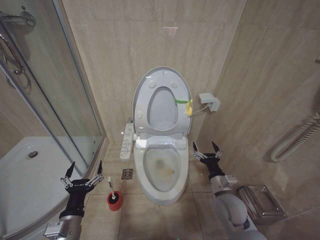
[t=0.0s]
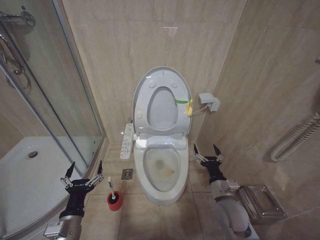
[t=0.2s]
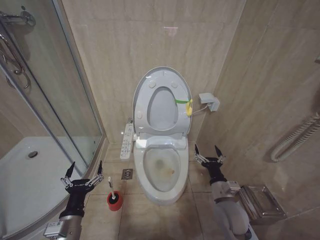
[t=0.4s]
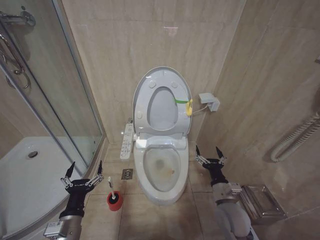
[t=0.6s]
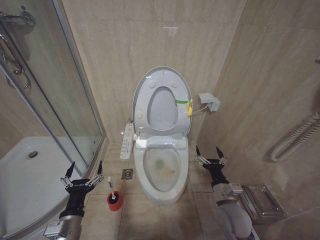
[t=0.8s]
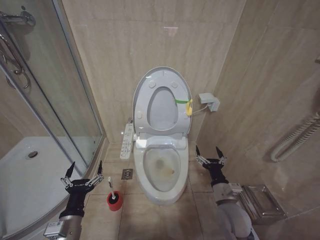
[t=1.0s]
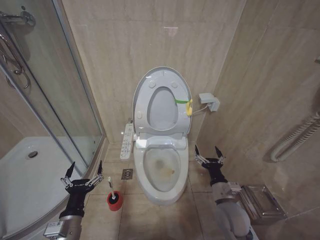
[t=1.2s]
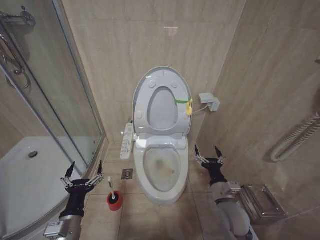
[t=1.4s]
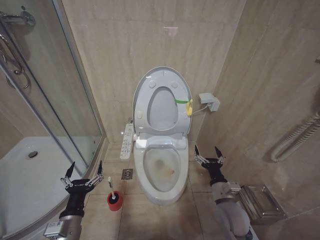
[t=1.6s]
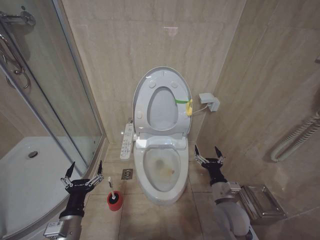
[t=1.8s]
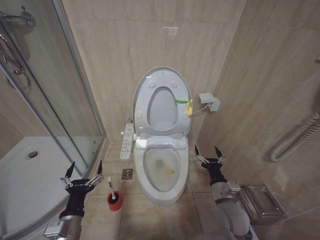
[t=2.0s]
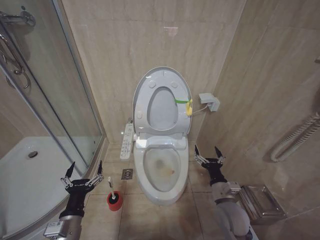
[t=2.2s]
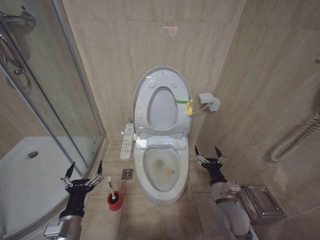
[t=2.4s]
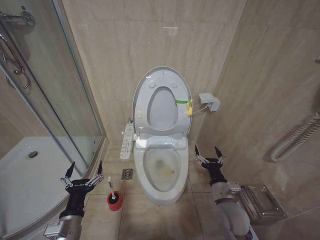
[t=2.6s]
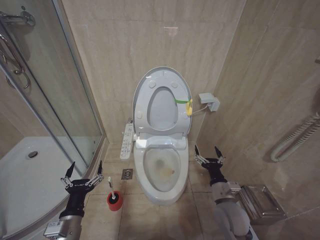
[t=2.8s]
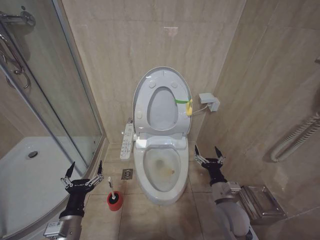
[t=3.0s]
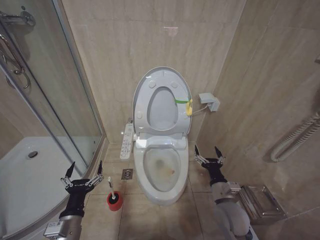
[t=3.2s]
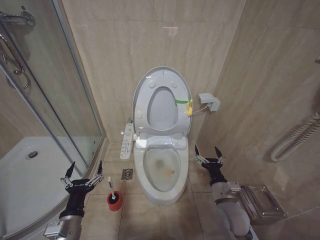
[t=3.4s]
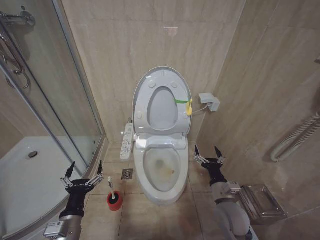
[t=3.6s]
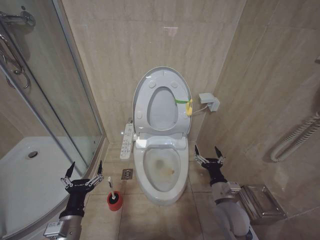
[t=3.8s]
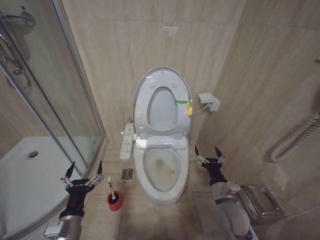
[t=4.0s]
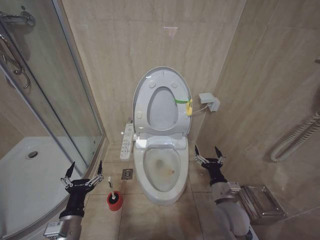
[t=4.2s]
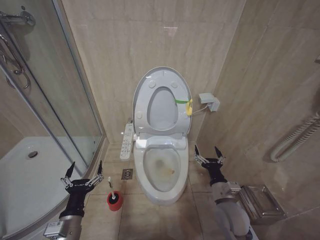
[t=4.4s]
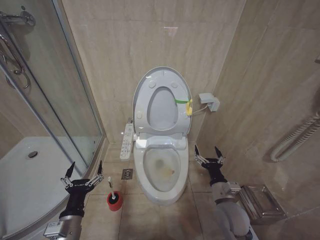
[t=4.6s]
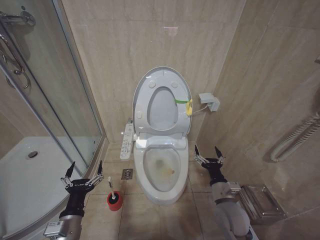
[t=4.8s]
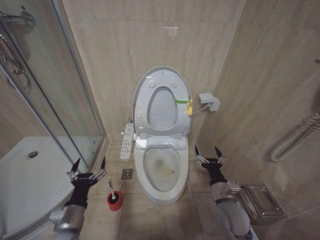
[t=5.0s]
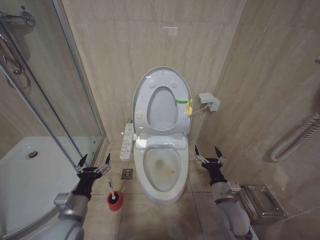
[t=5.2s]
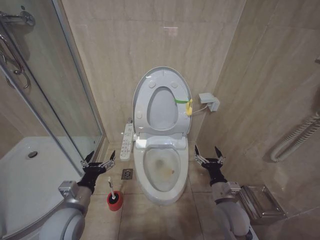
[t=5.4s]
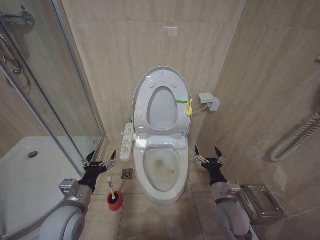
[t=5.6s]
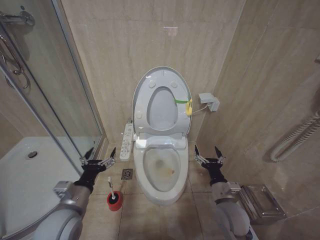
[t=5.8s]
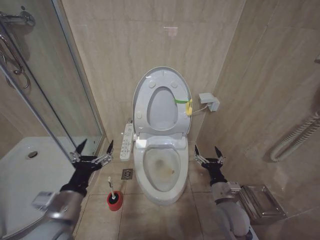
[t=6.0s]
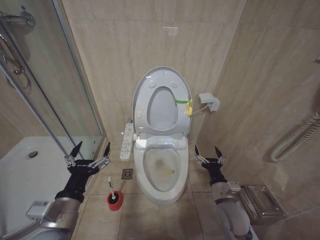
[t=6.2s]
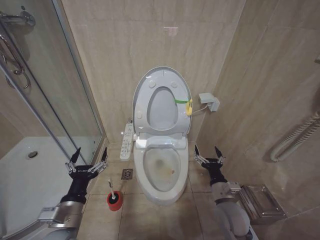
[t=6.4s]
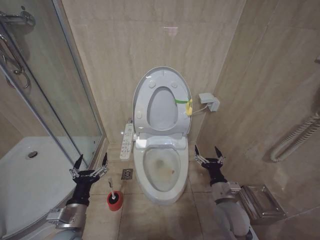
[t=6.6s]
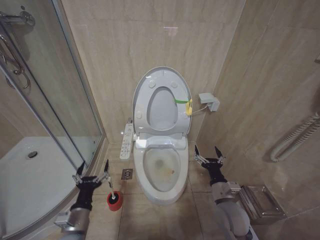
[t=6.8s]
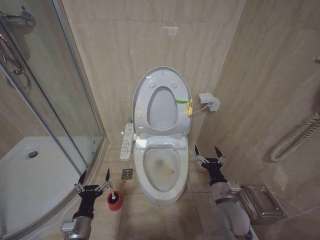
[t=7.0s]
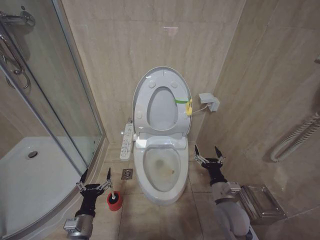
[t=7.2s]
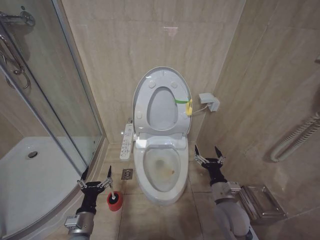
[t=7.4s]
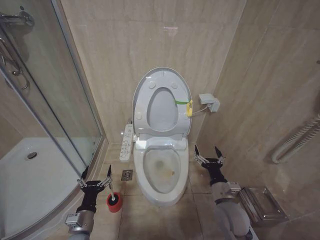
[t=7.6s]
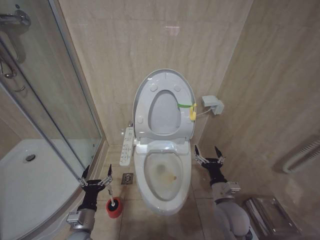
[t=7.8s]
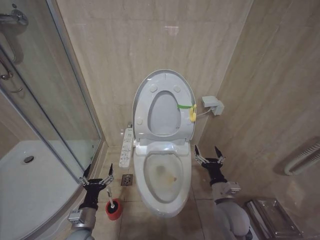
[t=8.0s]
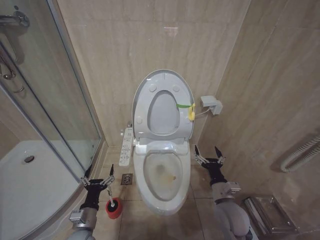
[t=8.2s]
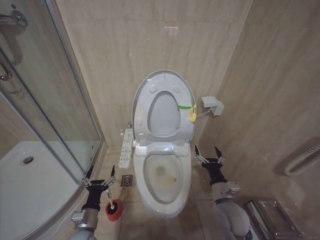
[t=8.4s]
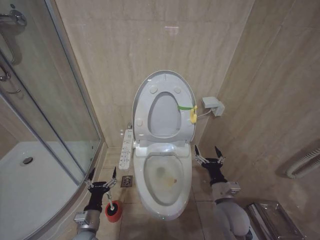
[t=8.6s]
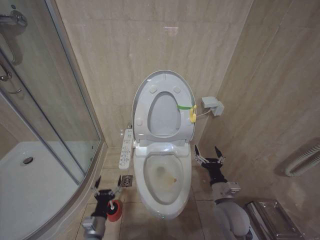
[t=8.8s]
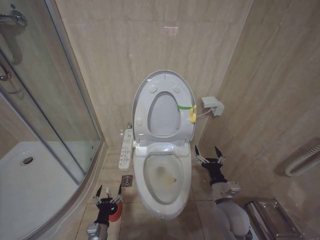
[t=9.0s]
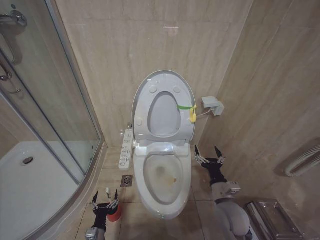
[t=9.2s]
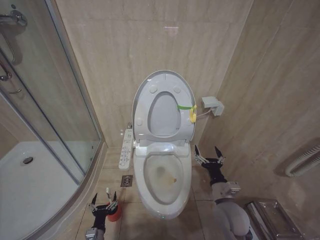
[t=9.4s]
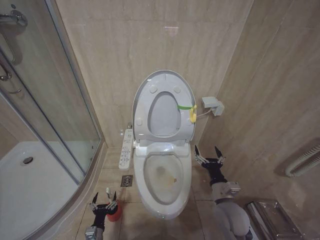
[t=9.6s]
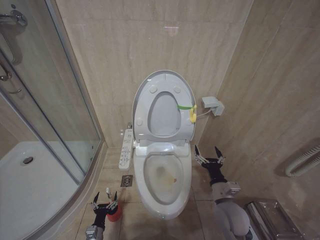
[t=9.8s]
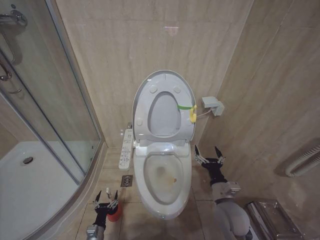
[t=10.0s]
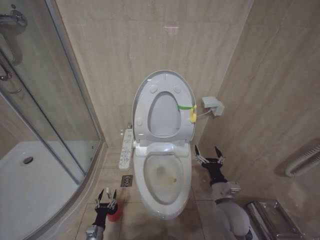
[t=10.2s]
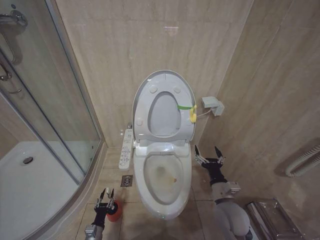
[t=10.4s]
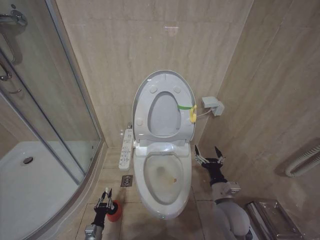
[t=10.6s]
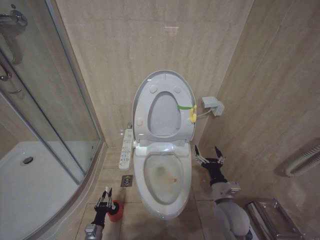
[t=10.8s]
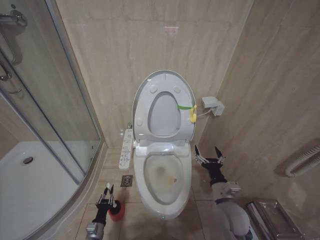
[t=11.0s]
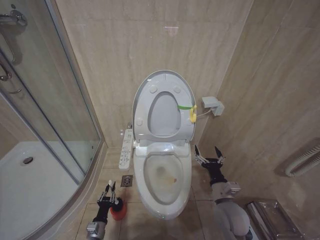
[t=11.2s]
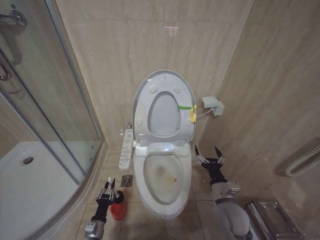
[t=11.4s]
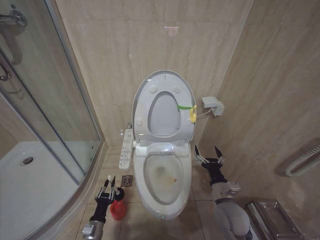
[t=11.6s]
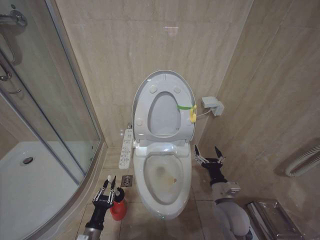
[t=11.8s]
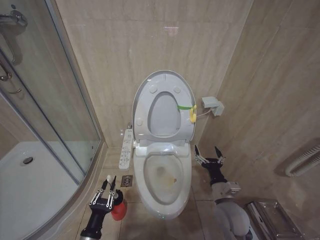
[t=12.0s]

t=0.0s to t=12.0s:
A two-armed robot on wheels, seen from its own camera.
Task of the whole recording: Open the toilet lid, clean the toilet bowl with a toilet brush, close the toilet lid, and flush.
t=0.0s to t=1.6s: The grippers move only a little.
t=1.6s to t=4.4s: Neither gripper changes place.
t=4.4s to t=6.0s: The left gripper shifts roughly 10 cm upward.
t=6.0s to t=7.6s: The left gripper is displaced downward by roughly 20 cm.
t=7.6s to t=9.0s: The left gripper goes approximately 10 cm downward.
t=9.0s to t=10.4s: The left gripper goes about 10 cm downward and to the left.
t=10.4s to t=12.0s: The left gripper travels upward by some 20 cm, and closes up.

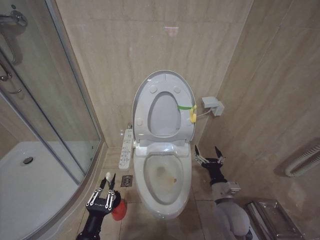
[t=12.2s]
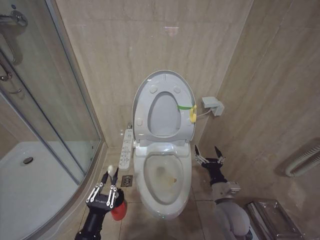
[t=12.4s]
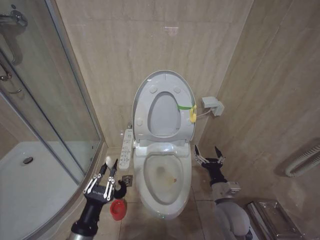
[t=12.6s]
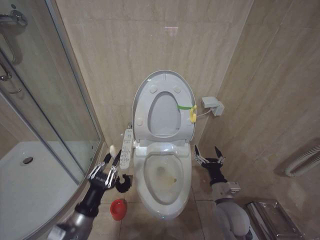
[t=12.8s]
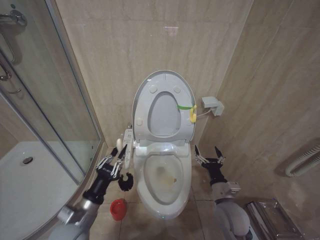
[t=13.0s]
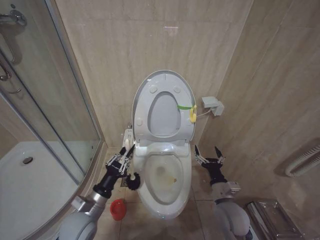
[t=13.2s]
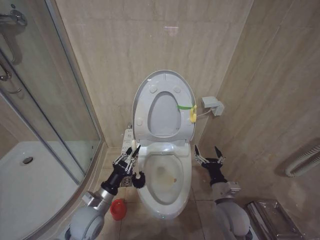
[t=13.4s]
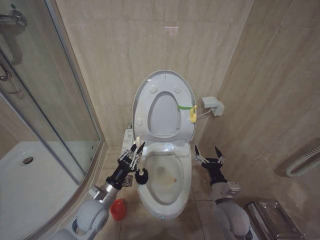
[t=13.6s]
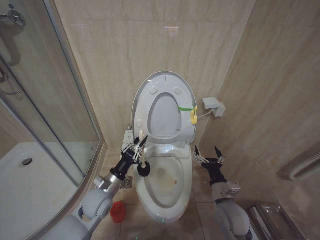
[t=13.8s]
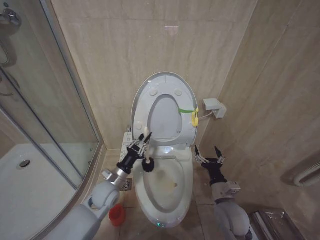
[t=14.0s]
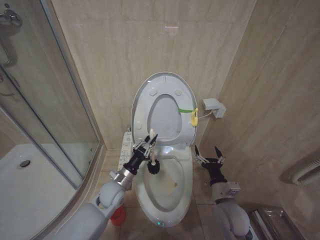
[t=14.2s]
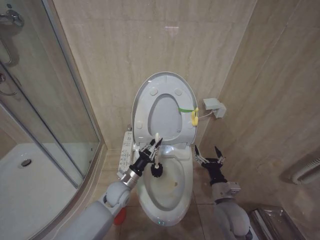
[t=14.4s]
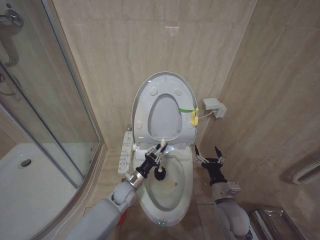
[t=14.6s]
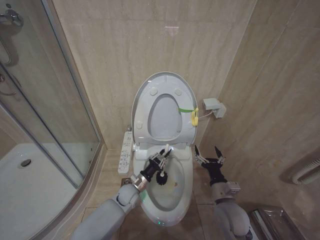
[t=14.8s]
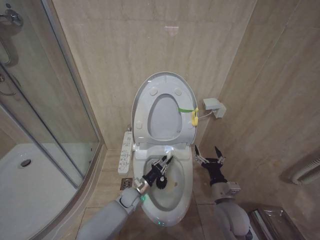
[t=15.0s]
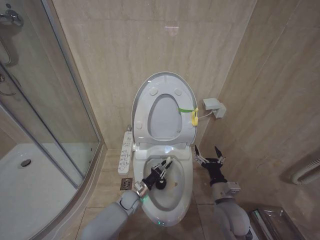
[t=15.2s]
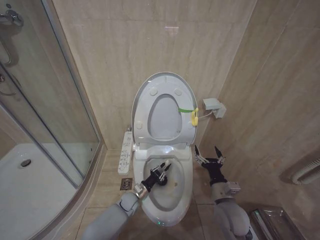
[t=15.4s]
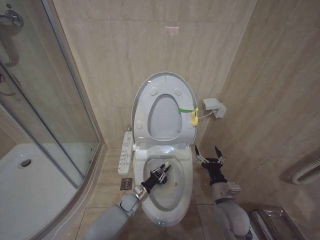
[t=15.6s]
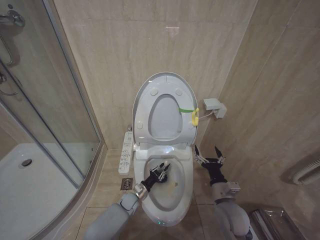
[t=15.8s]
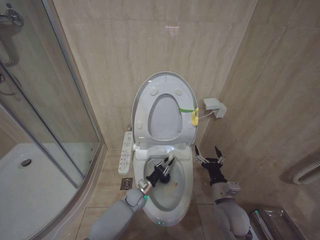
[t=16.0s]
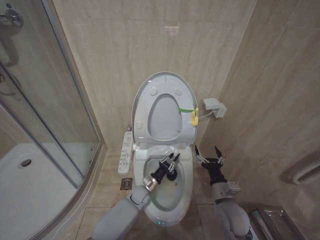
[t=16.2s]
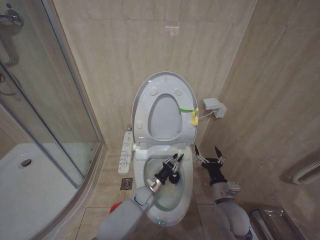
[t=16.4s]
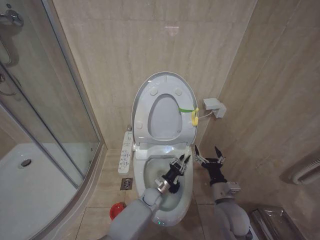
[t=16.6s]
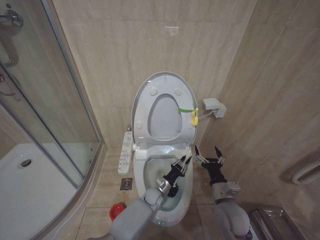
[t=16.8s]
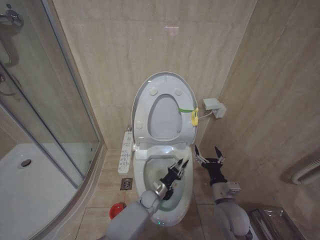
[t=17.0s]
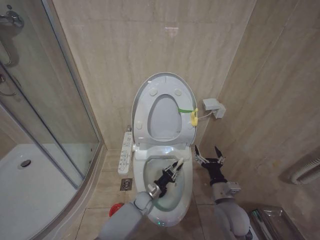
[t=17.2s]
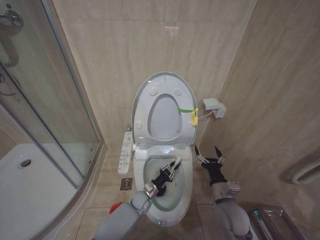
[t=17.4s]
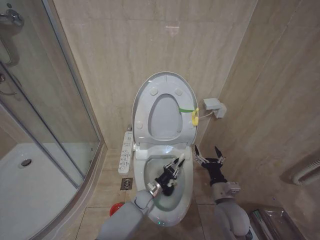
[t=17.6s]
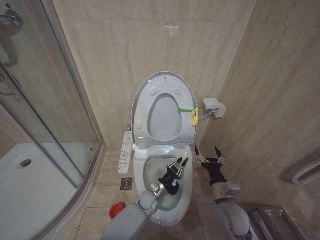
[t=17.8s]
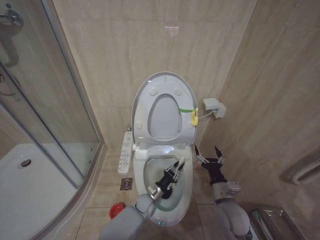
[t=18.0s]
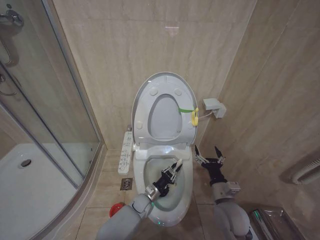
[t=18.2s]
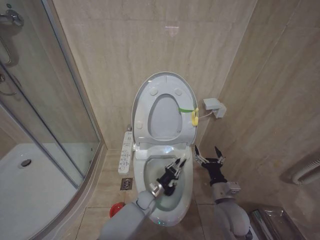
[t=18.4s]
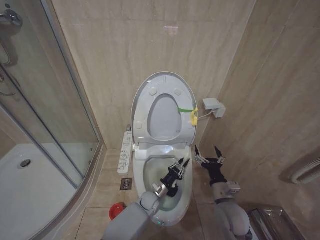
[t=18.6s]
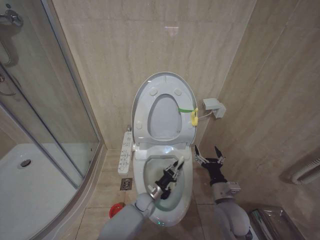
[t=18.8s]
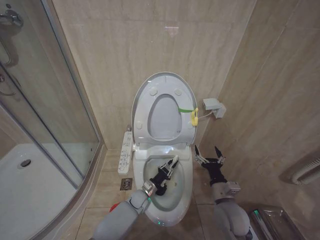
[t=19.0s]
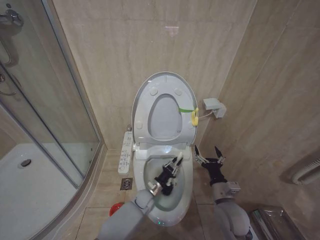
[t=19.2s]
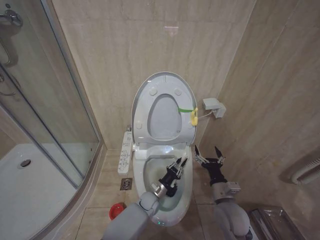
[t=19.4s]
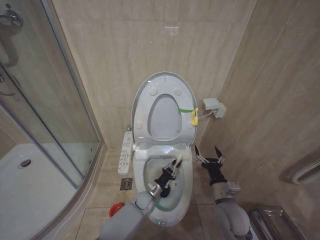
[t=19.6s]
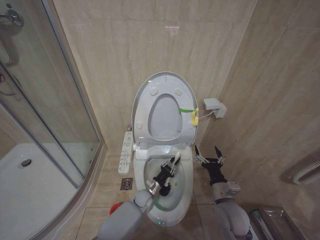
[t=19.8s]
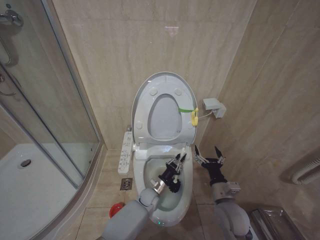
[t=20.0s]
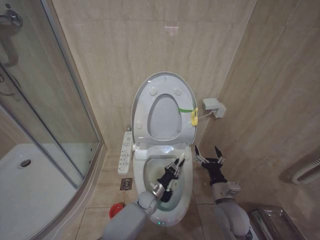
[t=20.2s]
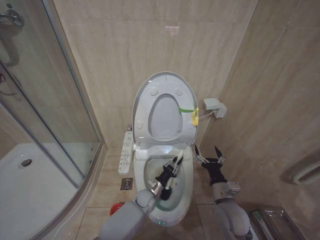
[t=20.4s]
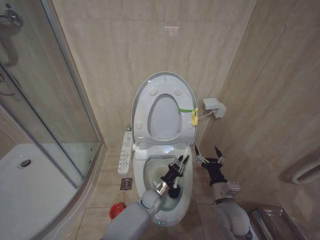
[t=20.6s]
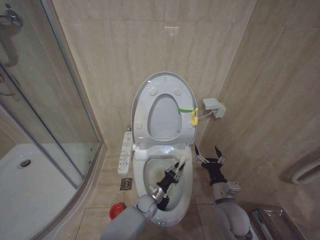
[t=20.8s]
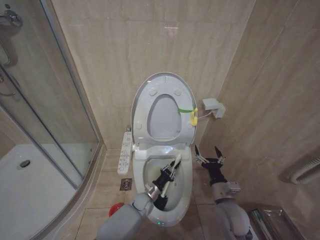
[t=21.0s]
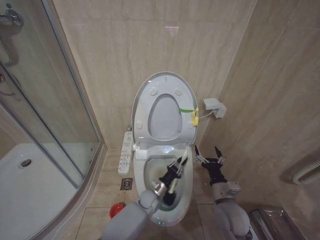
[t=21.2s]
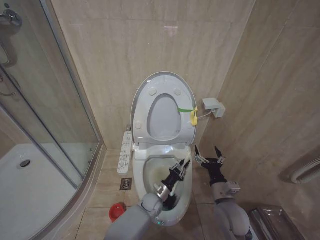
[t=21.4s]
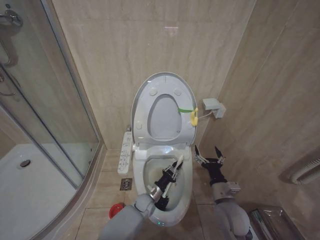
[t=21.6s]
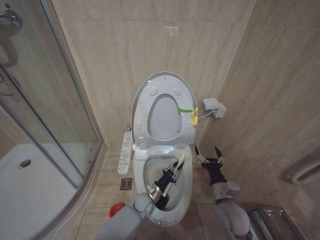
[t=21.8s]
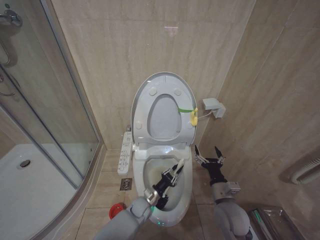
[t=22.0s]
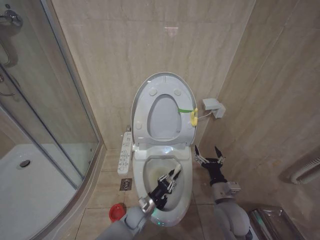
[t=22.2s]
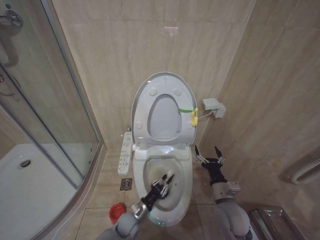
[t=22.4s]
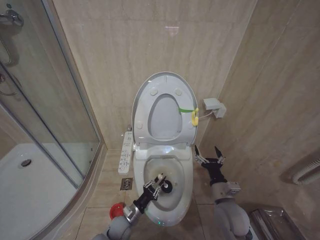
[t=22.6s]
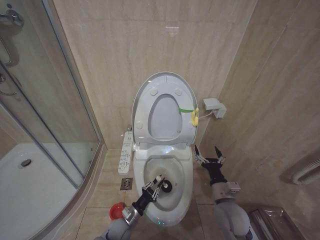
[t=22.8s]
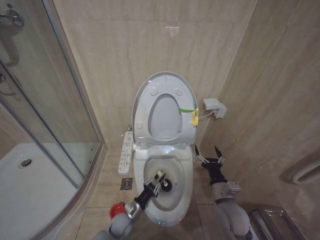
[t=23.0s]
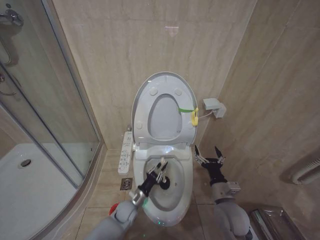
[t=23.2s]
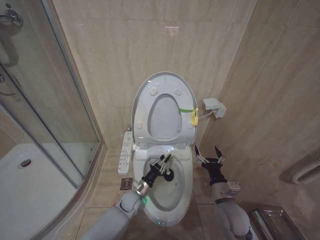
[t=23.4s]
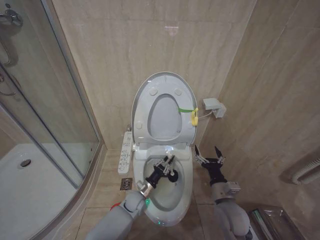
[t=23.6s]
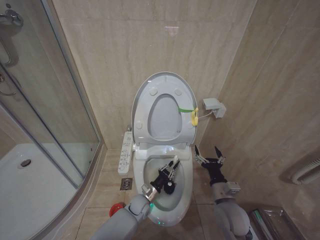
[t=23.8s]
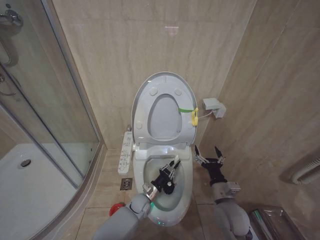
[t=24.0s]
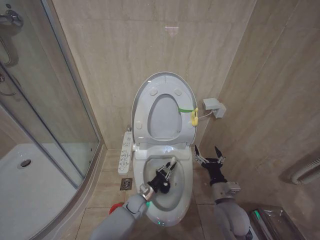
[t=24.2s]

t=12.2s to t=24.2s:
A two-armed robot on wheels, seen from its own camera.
Task of the whole recording: Open the toilet lid, clean the toilet bowl with a toilet brush, close the toilet lid, and flush.
t=12.2s to t=13.8s: The left gripper is displaced forward by some 20 cm.
t=13.8s to t=15.2s: The left gripper moves downward, to the right and forward, some 20 cm.
t=15.2s to t=16.6s: The left gripper heads to the right, covering about 10 cm.
t=16.6s to t=18.2s: The left gripper shifts by about 5 cm.
t=18.2s to t=19.8s: The left gripper swings left and right, some 5 cm each way, with 2 reversals.
t=19.8s to t=21.2s: The grippers move only a little.
t=21.2s to t=22.6s: The left gripper goes about 15 cm to the left and backward.
t=22.6s to t=24.2s: The left gripper moves forward and to the right, roughly 10 cm.
